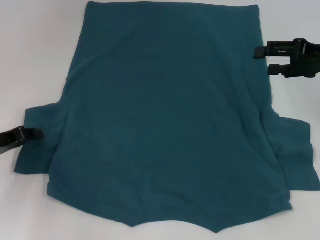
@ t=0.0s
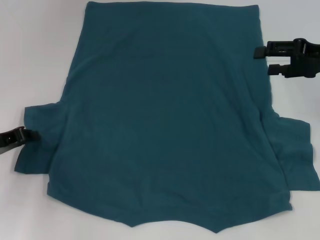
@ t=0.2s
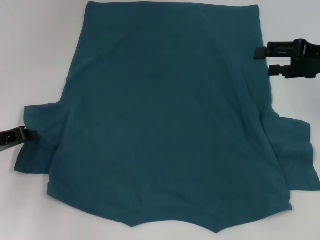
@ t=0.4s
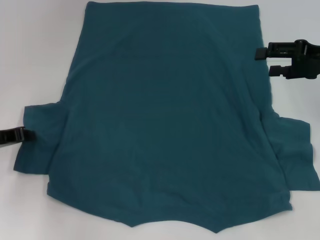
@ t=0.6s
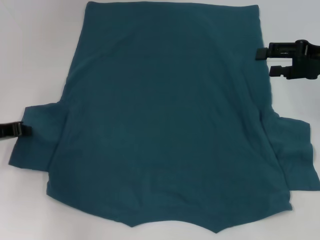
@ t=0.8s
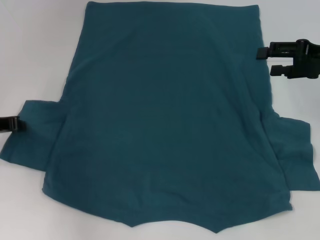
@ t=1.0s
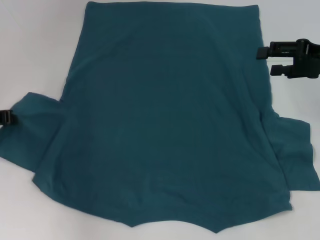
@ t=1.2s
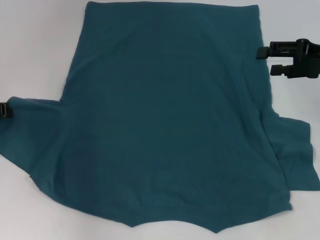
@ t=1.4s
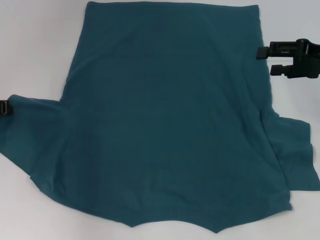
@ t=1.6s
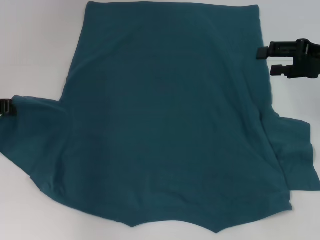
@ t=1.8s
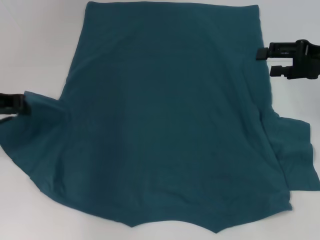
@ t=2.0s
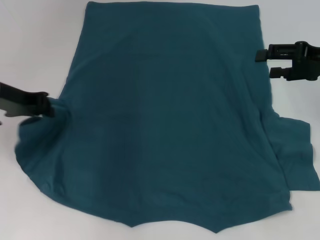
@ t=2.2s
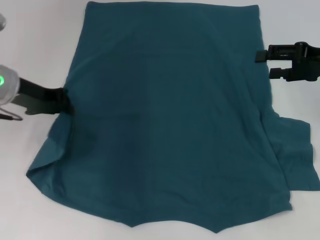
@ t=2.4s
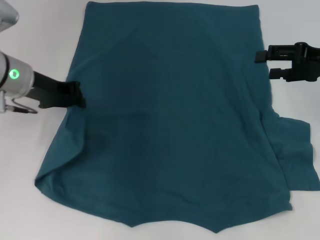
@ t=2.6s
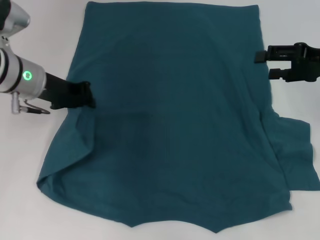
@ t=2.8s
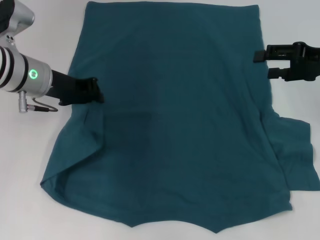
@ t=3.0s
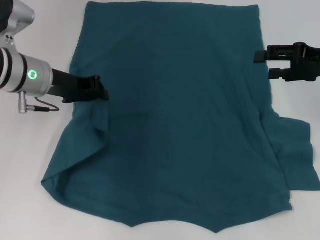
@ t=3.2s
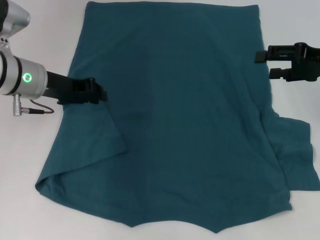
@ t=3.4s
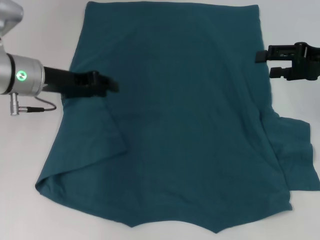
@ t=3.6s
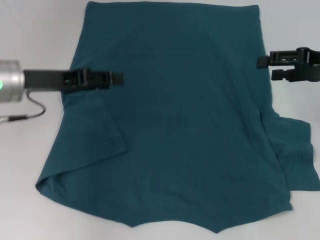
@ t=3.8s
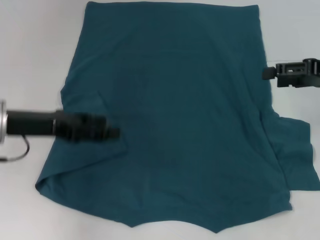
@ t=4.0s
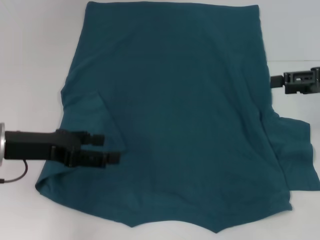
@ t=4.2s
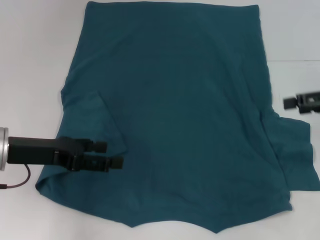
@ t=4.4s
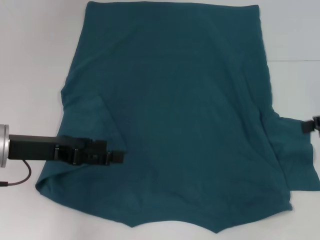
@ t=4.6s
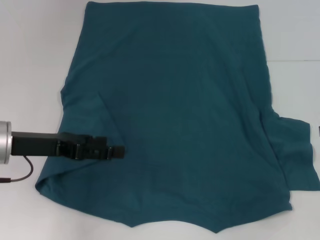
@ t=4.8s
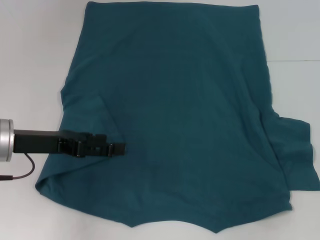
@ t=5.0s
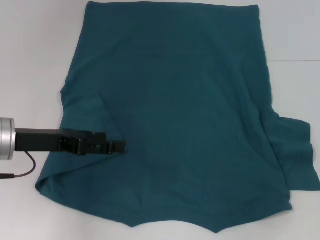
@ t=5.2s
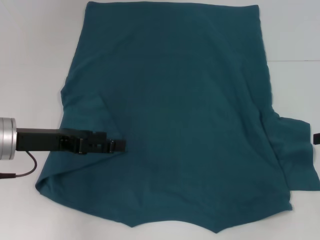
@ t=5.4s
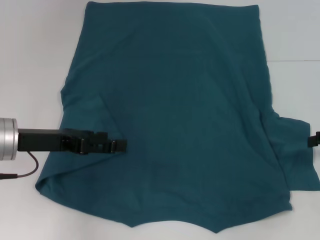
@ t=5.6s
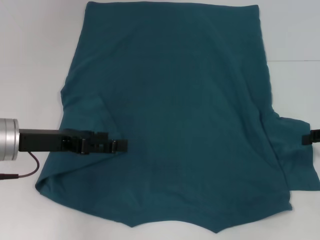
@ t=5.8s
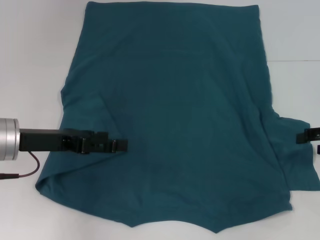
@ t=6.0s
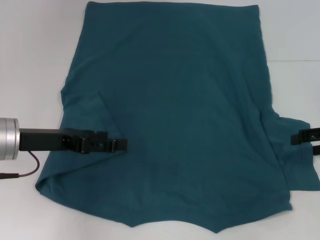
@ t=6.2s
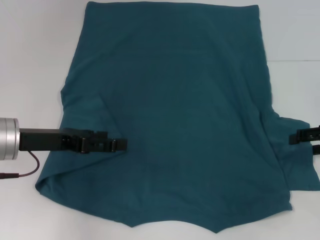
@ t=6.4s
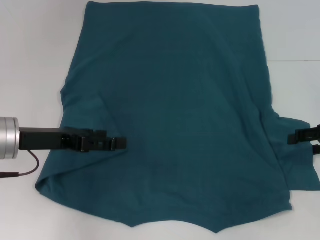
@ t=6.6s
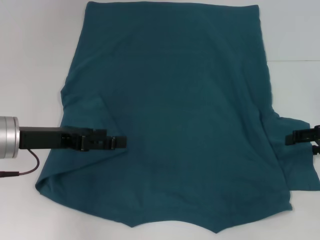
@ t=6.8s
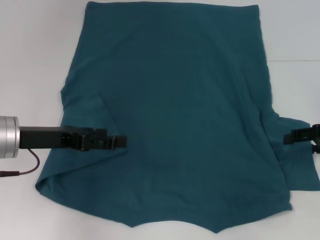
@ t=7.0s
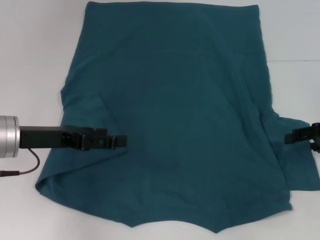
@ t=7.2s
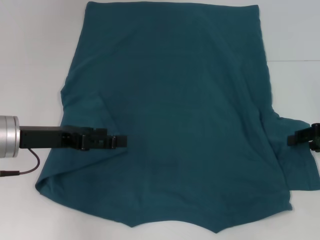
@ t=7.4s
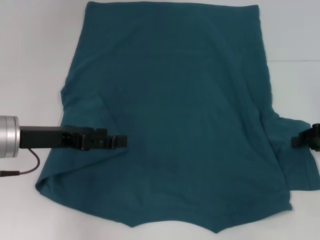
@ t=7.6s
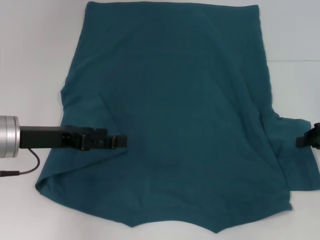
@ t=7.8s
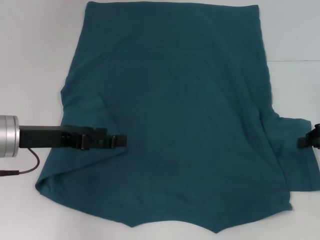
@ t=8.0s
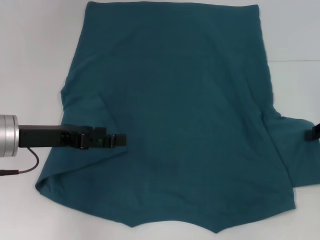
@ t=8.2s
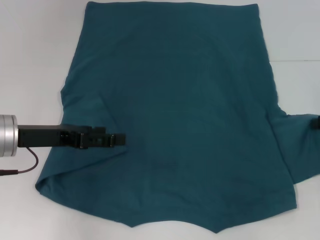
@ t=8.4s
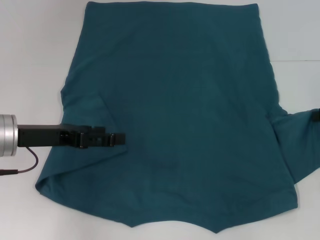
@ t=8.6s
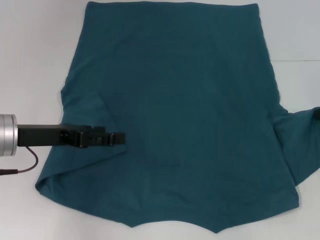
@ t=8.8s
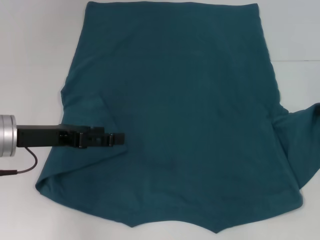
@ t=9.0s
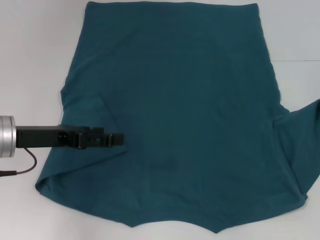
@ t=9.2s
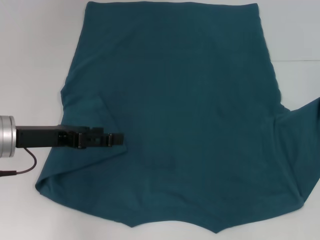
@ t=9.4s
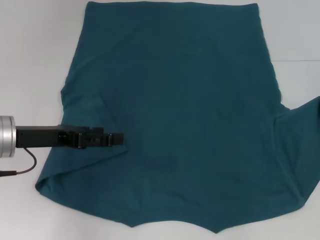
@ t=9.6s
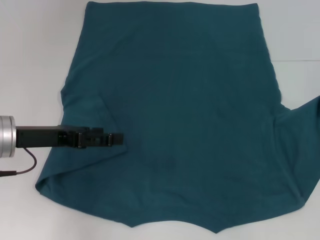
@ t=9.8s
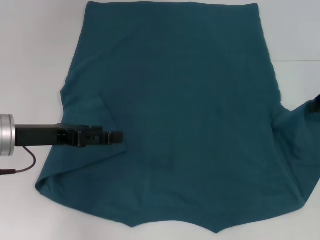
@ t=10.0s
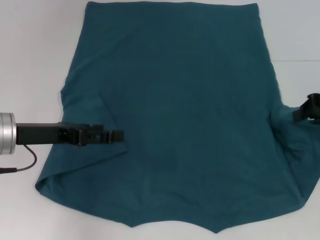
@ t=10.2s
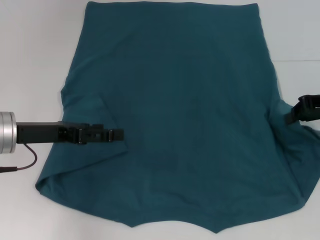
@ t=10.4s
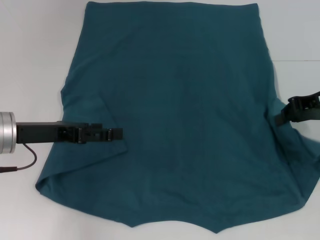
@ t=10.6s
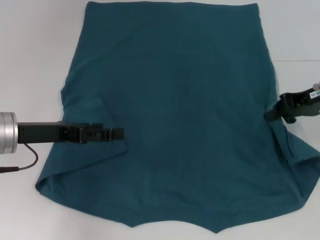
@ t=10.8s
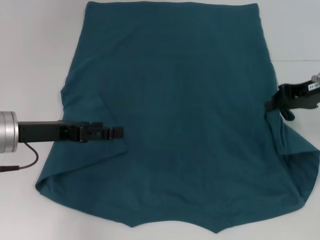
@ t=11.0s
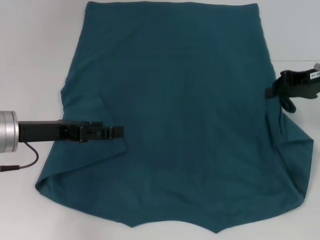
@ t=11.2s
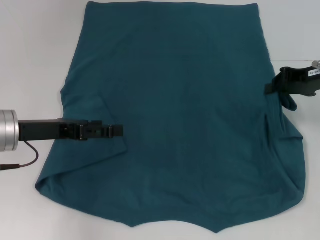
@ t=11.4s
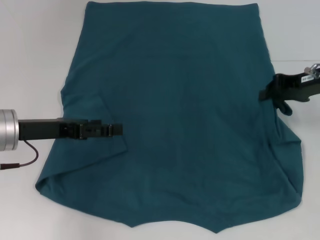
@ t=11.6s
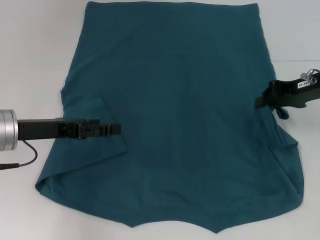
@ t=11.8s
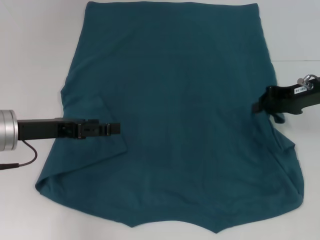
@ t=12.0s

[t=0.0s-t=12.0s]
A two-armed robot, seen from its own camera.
Step, t=0.0s to t=3.4s: Fold the bottom left sleeve with your left hand.
t=0.0s to t=1.6s: The left gripper goes roughly 10 cm upward and forward, and closes.
t=1.6s to t=3.0s: The left gripper travels to the right by about 10 cm.
t=3.0s to t=4.4s: The right gripper changes place by some 5 cm. Meanwhile the left gripper shifts approximately 10 cm backward, and opens up.
t=4.4s to t=6.0s: The right gripper heads downward, covering roughly 5 cm.
t=7.6s to t=9.0s: The right gripper shifts by about 5 cm, and closes.
t=9.0s to t=10.4s: The right gripper changes place by about 5 cm.
t=10.4s to t=12.0s: The grippers stay close to where they were, moving slightly.

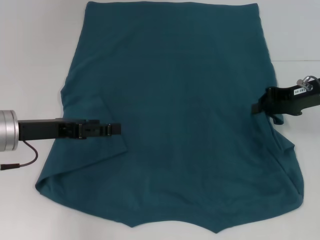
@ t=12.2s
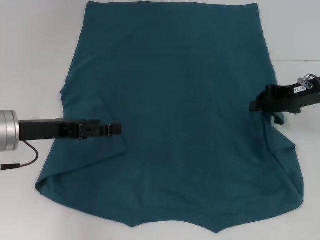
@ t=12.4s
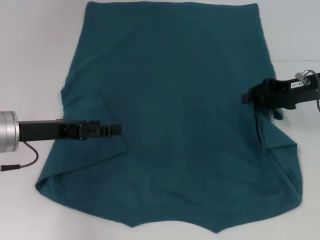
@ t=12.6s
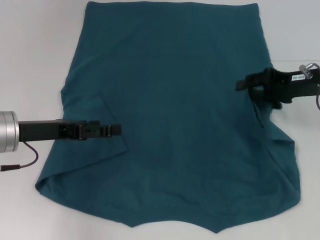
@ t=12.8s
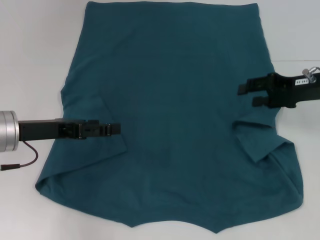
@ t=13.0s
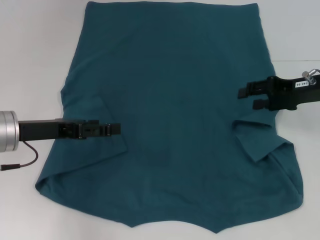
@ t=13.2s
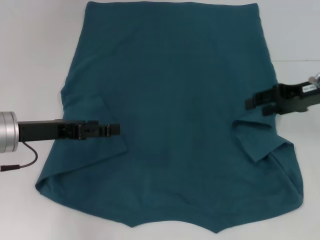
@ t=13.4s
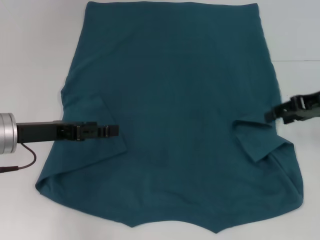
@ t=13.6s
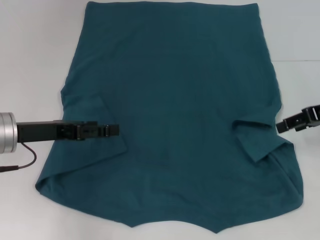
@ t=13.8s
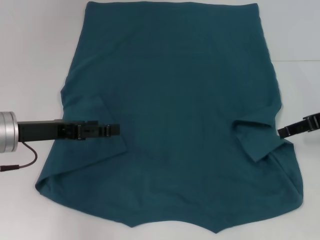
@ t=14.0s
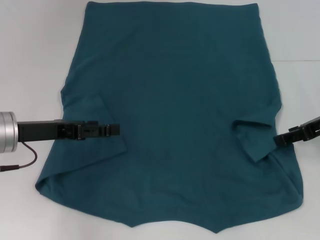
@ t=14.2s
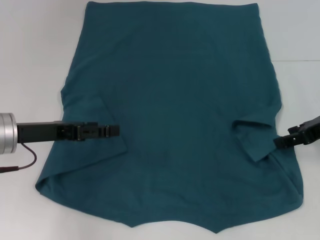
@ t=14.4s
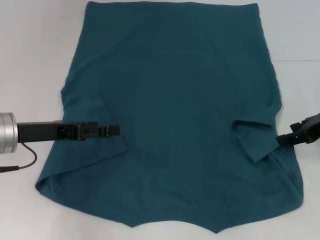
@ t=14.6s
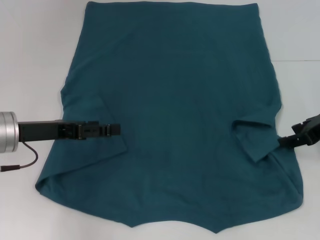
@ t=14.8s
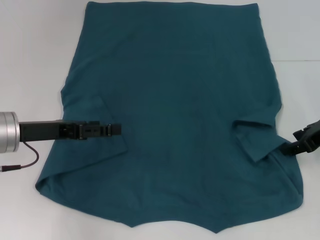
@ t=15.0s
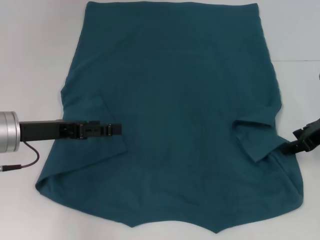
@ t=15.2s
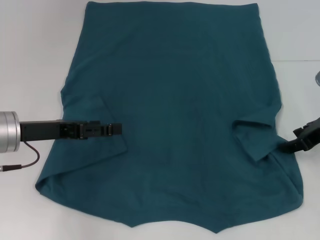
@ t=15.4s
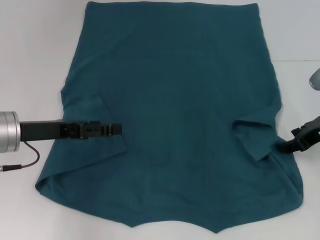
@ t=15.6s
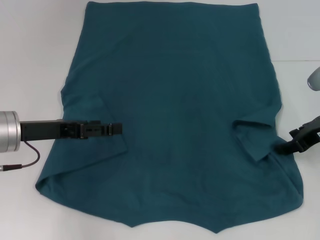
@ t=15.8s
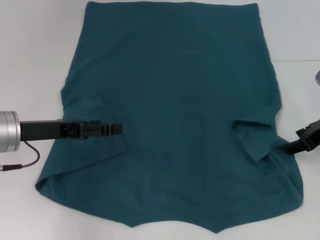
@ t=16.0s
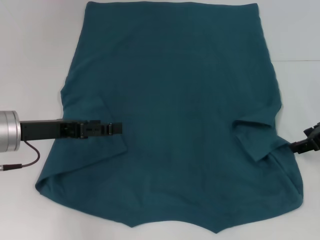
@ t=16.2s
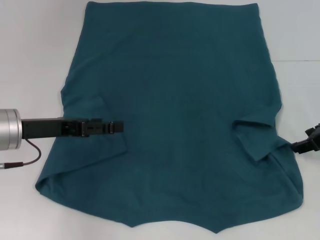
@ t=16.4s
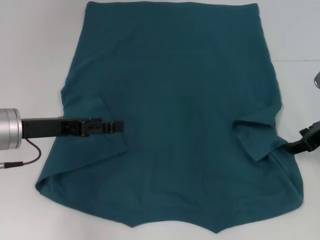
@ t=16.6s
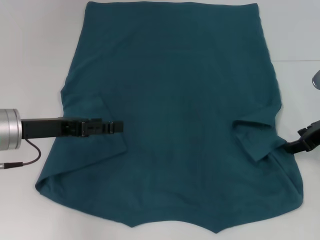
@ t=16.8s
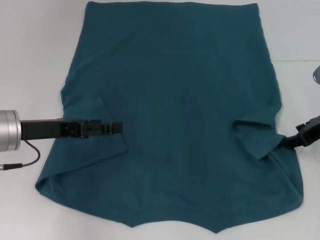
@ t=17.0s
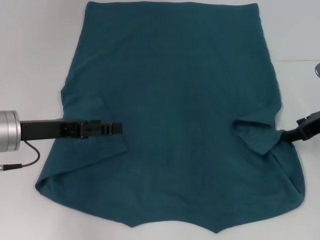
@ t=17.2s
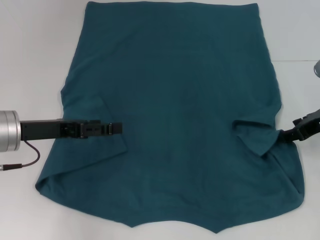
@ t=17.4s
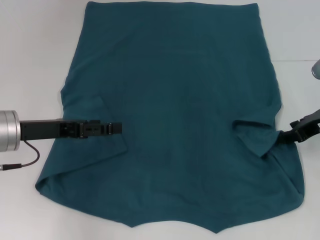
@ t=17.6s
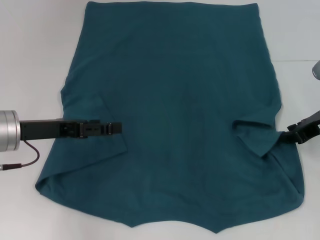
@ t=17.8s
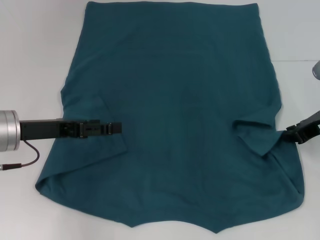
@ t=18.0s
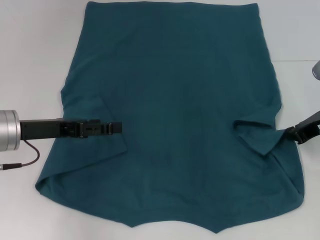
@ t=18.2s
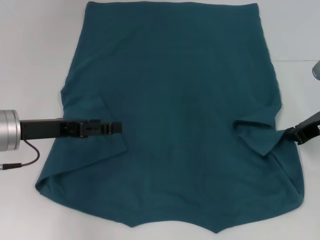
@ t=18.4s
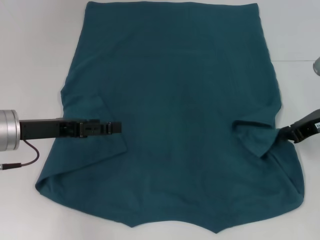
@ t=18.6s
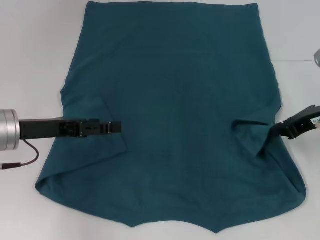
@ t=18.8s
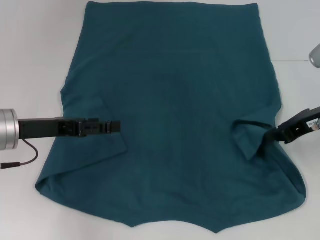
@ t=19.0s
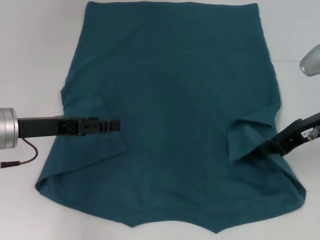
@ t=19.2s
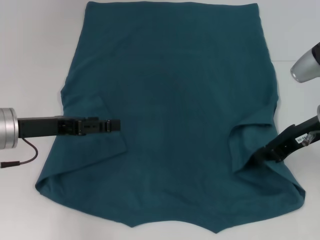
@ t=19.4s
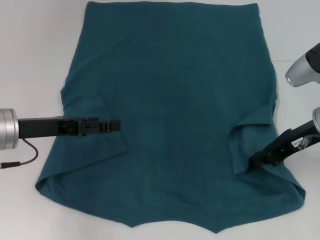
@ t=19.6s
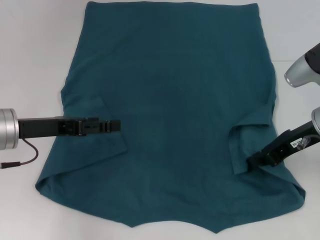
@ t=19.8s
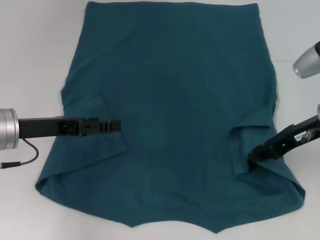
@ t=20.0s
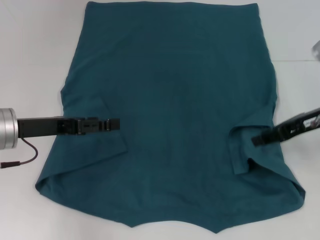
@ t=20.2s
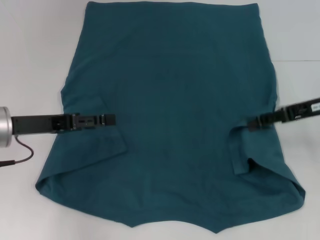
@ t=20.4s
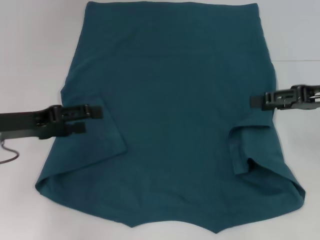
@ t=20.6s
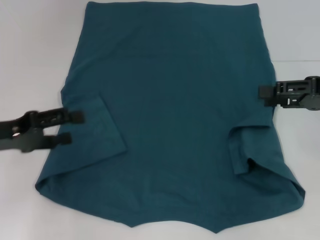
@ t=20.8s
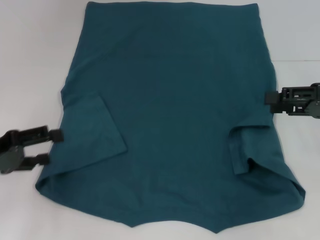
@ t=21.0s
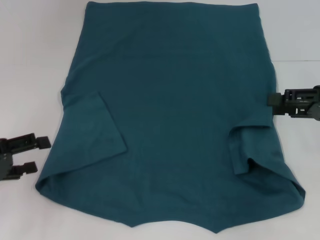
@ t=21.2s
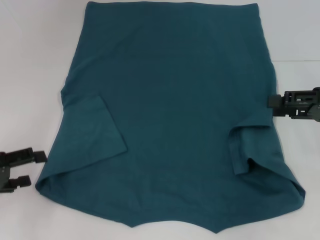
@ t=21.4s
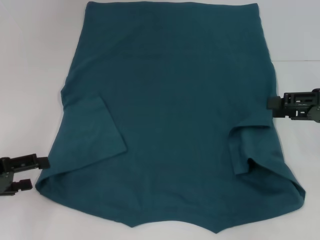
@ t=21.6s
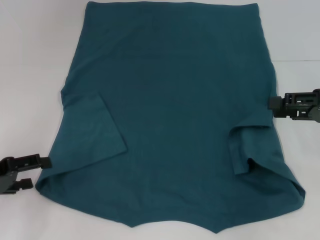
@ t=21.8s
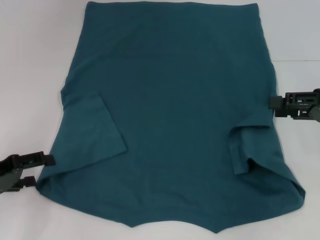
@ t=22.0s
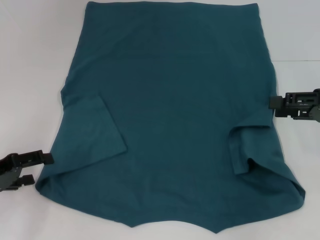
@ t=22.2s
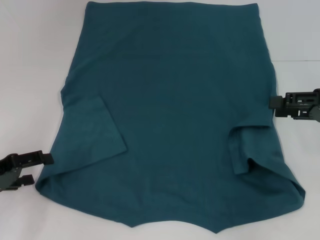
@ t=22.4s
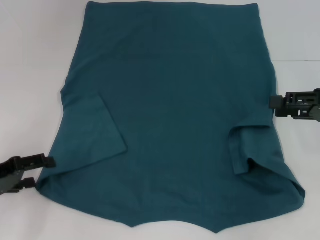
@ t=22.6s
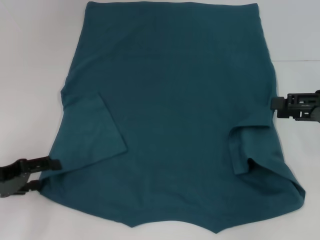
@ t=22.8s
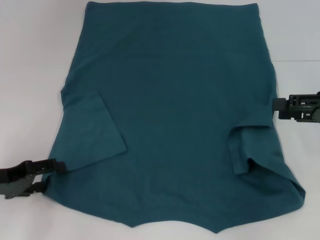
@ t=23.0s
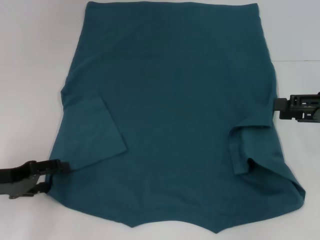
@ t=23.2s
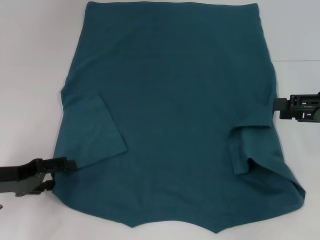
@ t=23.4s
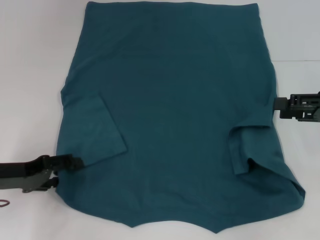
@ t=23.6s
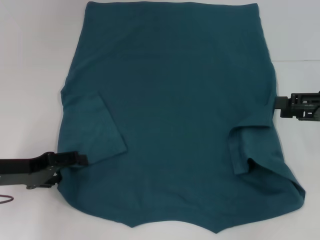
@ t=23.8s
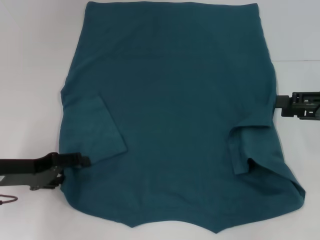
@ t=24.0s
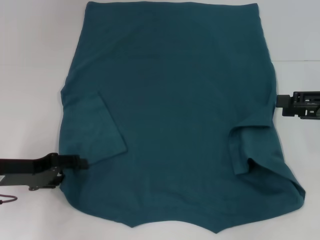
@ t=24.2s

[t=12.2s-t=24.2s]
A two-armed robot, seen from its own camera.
Step, t=12.2s to t=20.4s: Fold the bottom right sleeve to the right.
t=12.2s to t=13.8s: The right gripper ends up approximately 5 cm from where it was, and opens up.
t=15.2s to t=16.6s: The grippers stay close to where they were, moving slightly.
t=16.6s to t=18.2s: The right gripper closes up.
t=18.2s to t=19.8s: The right gripper ends up roughly 5 cm from where it was.
t=19.8s to t=21.2s: The left gripper goes roughly 10 cm to the left and backward; the right gripper heads to the right, covering about 10 cm, and opens.
t=21.2s to t=22.6s: The grippers move only a little.
t=22.6s to t=24.2s: The left gripper ends up approximately 5 cm from where it was.
